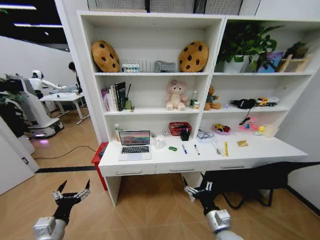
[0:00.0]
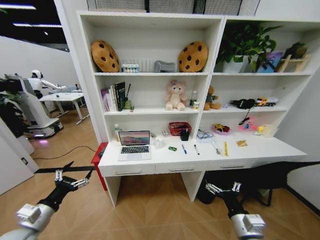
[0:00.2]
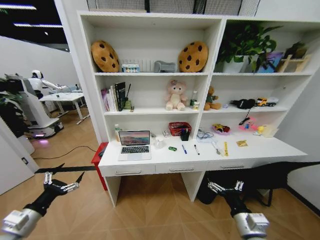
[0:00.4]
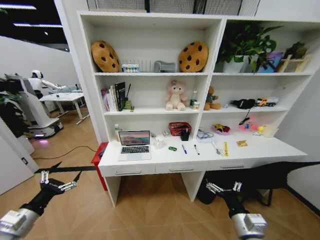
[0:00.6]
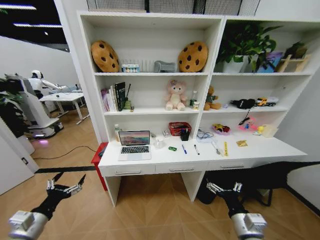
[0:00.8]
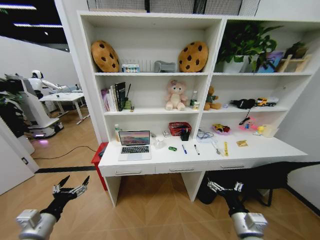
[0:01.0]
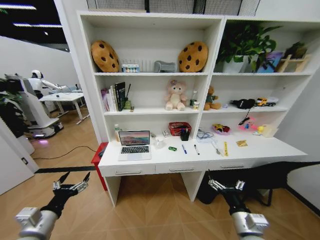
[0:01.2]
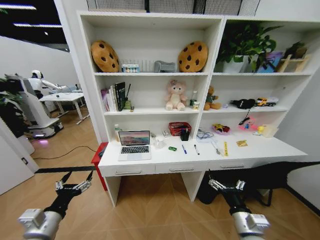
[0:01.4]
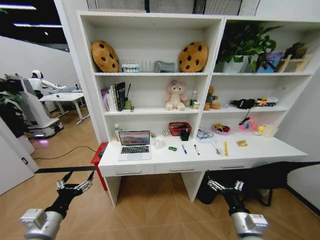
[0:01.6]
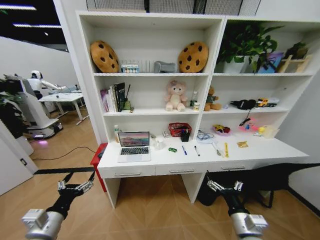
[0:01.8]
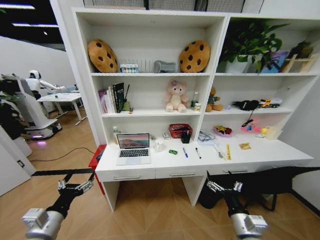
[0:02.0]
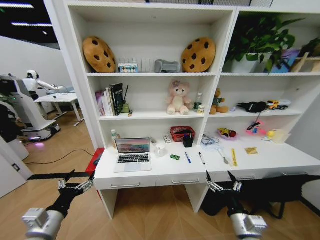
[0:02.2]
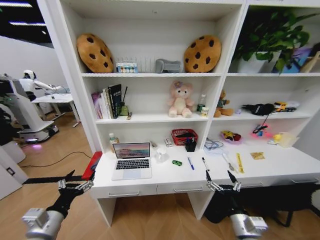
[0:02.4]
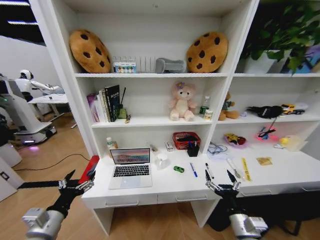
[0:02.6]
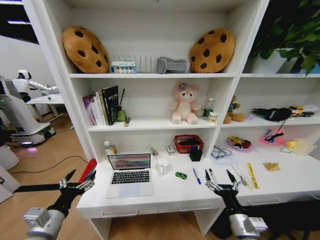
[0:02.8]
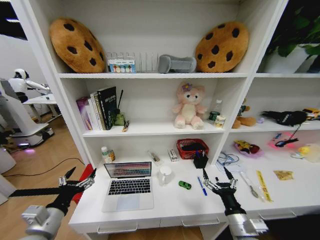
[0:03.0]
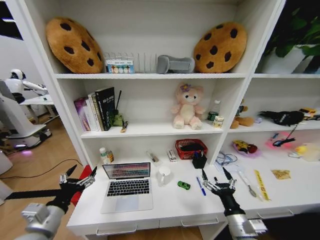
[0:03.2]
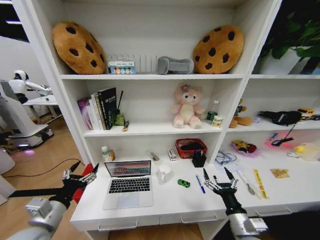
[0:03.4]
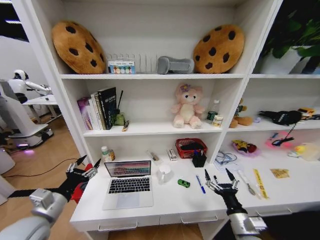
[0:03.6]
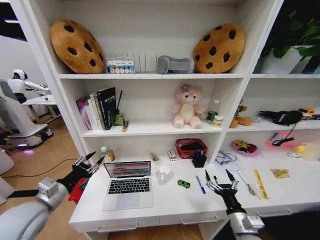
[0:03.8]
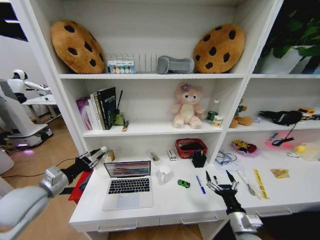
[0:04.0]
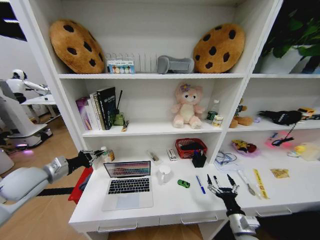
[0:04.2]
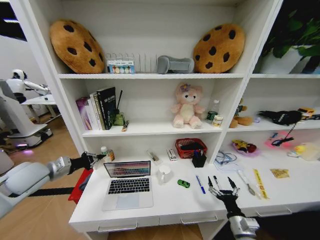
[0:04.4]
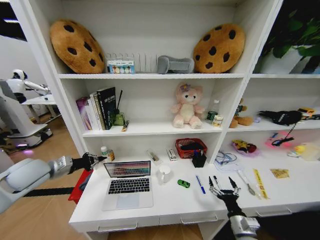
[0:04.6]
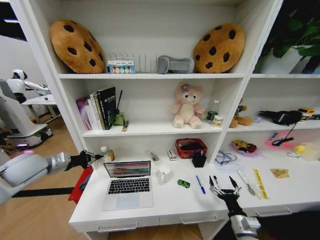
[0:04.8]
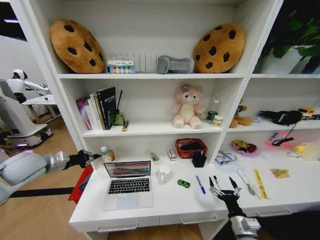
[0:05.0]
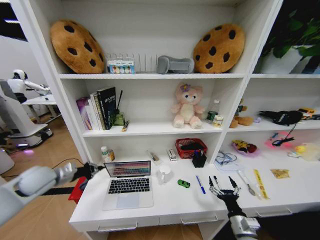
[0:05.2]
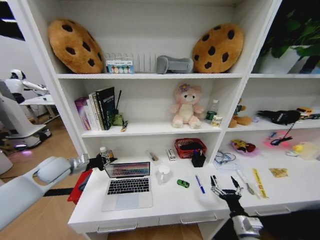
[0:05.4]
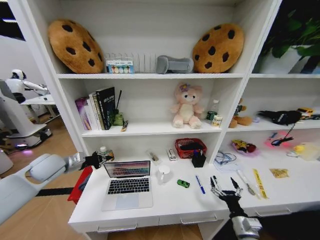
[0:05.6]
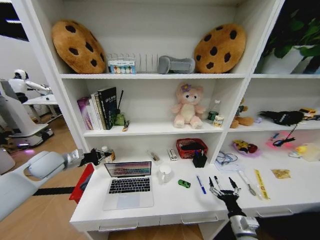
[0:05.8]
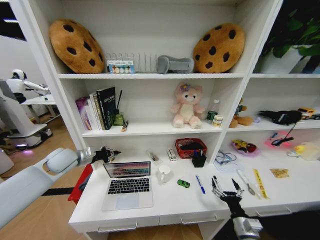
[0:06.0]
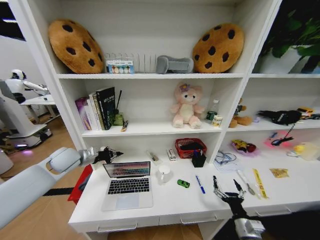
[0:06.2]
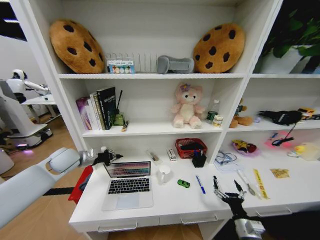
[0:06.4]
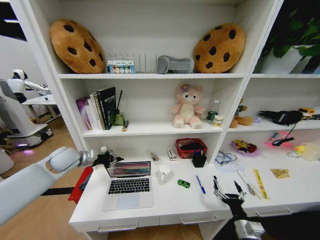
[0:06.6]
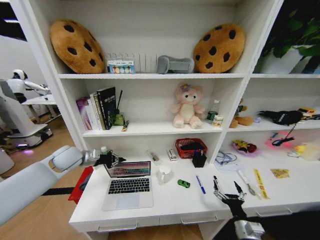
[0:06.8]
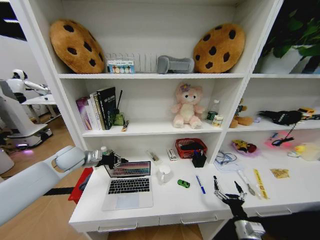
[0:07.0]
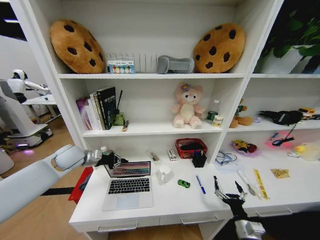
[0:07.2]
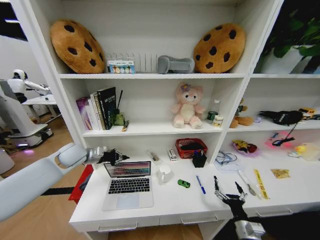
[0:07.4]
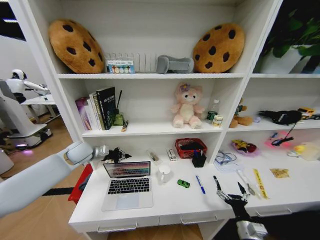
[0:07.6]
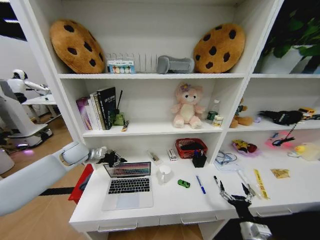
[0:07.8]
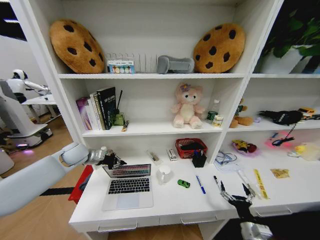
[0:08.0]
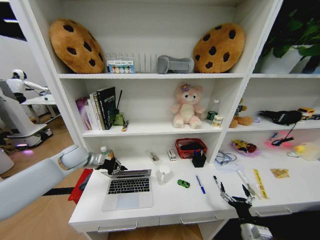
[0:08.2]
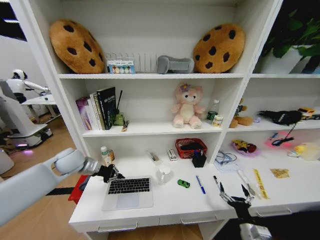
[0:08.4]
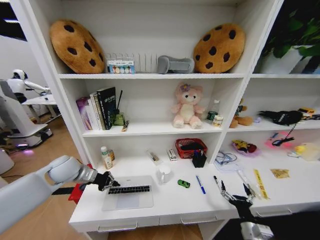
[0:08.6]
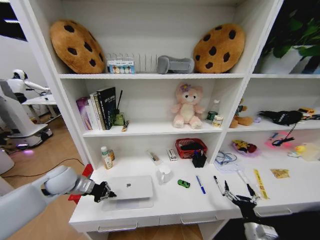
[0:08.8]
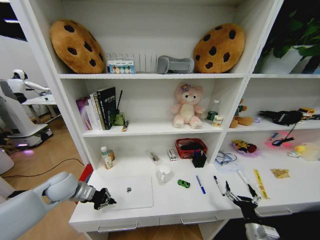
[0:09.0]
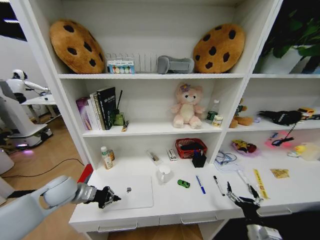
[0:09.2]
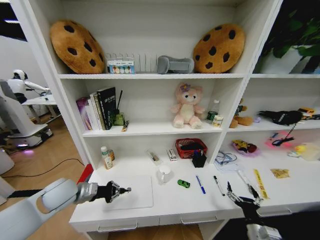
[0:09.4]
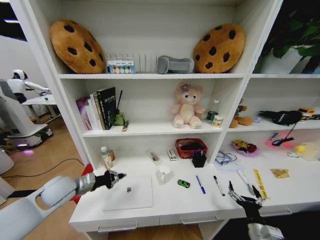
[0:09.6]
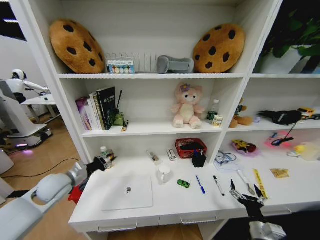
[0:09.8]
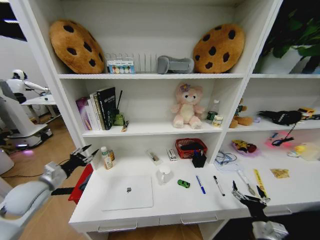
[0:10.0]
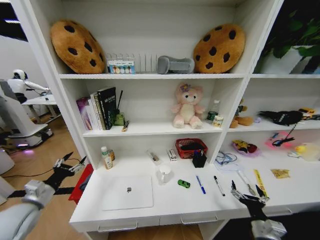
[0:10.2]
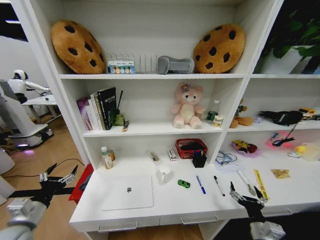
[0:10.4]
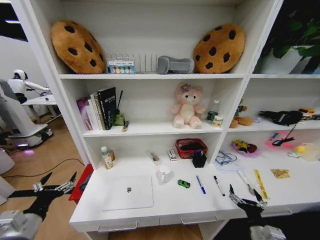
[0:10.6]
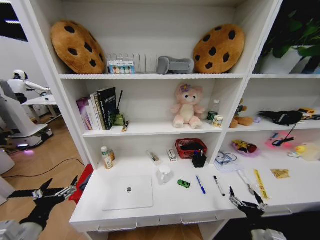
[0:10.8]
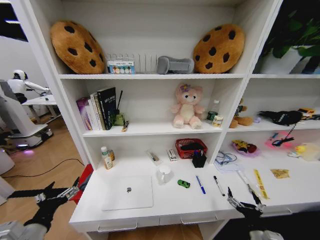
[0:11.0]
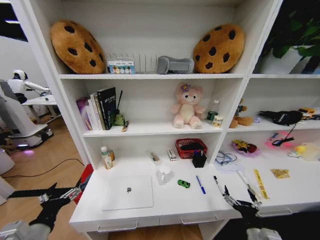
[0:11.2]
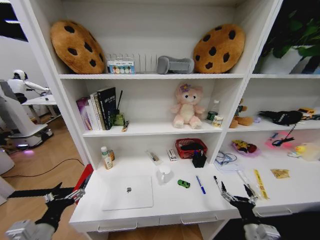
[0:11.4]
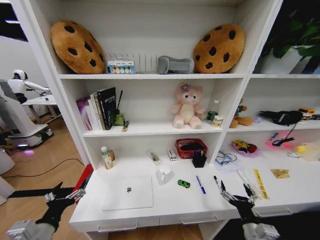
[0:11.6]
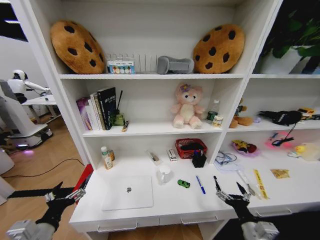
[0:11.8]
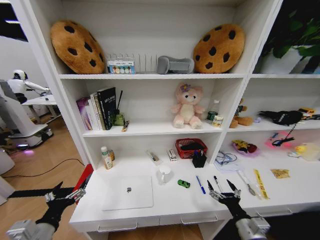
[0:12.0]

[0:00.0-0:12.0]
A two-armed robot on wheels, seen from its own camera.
Task of the whole recording: Organize the objects on the table.
0:03.0 to 0:04.4: The left gripper heads forward, upward and to the left, covering approximately 20 cm, and closes up; the right gripper shifts approximately 5 cm downward.
0:04.4 to 0:06.0: The left gripper moves forward, some 10 cm, and reaches roughly 5 cm downward, then returns.
0:06.0 to 0:07.6: The left gripper moves approximately 5 cm.
0:07.6 to 0:09.0: The left gripper goes roughly 15 cm backward and downward.
0:09.0 to 0:10.4: The left gripper shifts roughly 15 cm backward and to the left, and opens its fingers.
0:10.4 to 0:12.0: The left gripper is displaced to the right and backward by approximately 10 cm, while the right gripper changes place by approximately 5 cm.

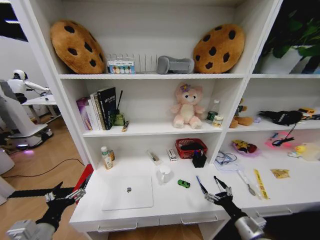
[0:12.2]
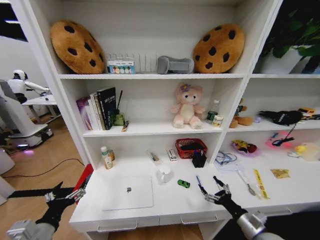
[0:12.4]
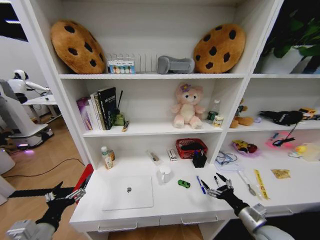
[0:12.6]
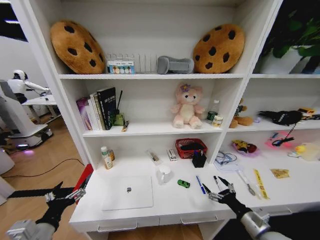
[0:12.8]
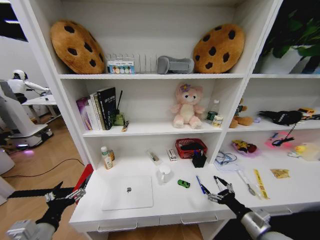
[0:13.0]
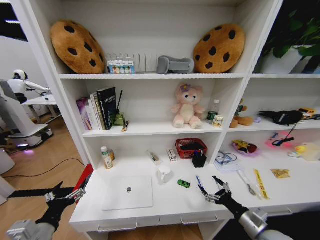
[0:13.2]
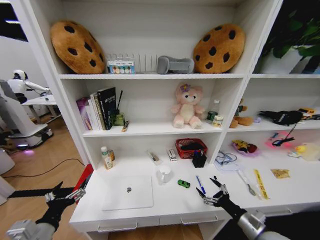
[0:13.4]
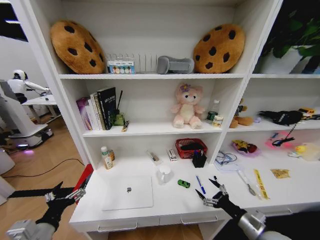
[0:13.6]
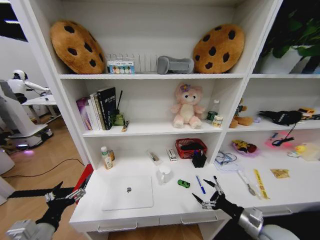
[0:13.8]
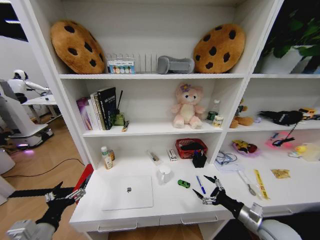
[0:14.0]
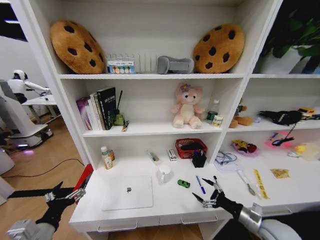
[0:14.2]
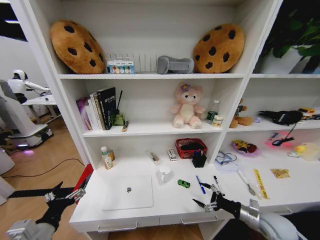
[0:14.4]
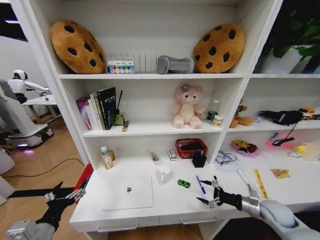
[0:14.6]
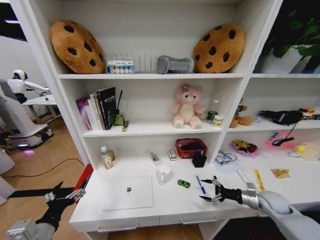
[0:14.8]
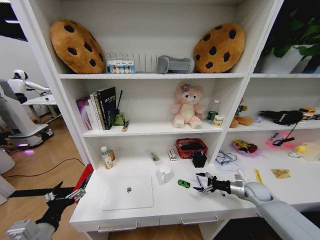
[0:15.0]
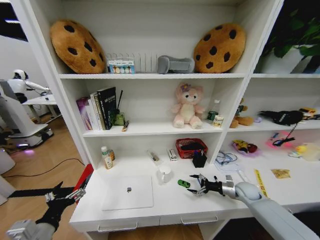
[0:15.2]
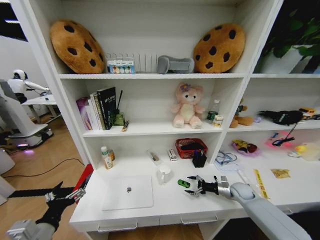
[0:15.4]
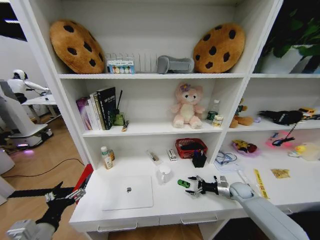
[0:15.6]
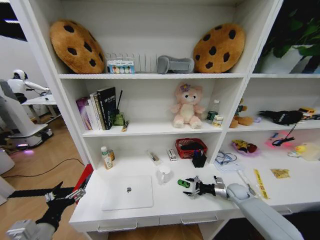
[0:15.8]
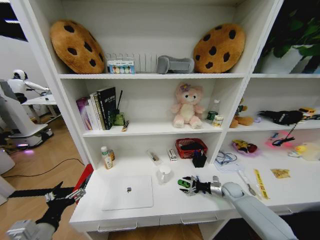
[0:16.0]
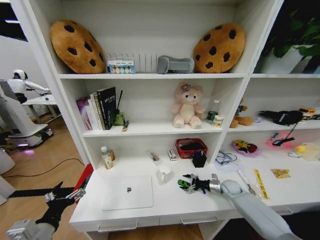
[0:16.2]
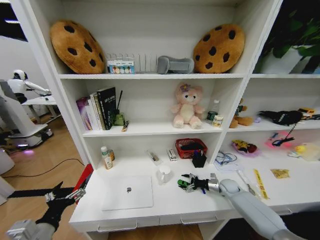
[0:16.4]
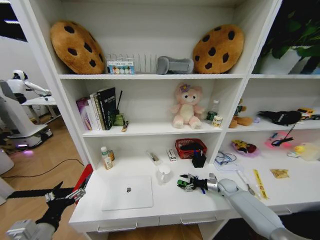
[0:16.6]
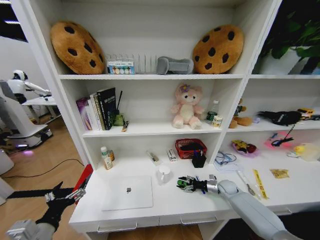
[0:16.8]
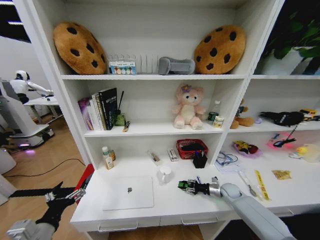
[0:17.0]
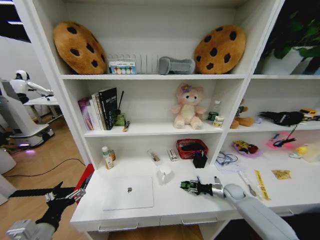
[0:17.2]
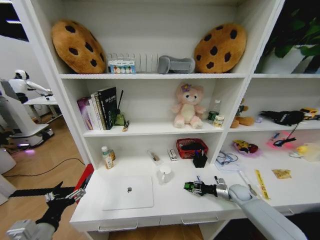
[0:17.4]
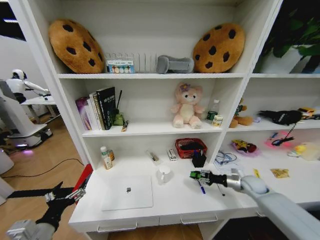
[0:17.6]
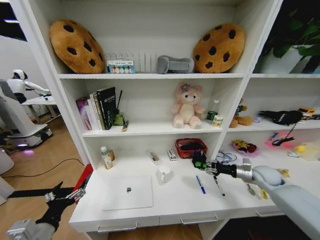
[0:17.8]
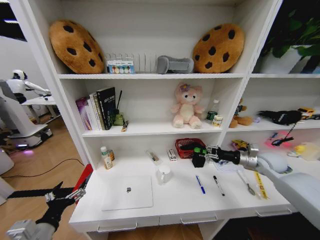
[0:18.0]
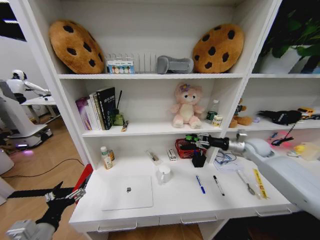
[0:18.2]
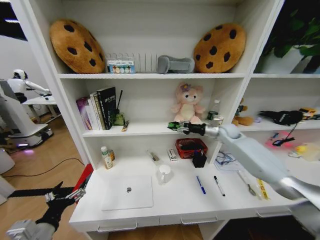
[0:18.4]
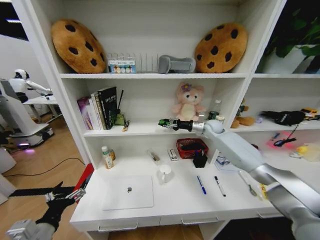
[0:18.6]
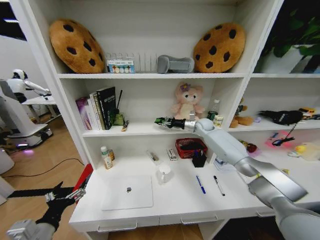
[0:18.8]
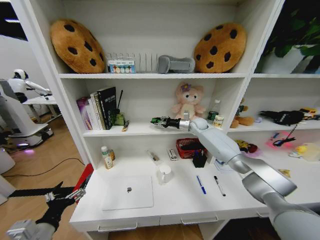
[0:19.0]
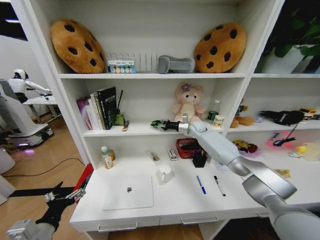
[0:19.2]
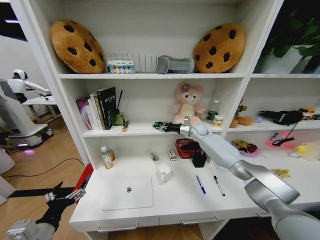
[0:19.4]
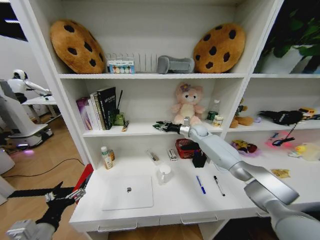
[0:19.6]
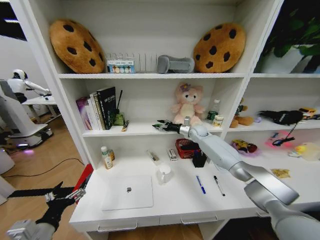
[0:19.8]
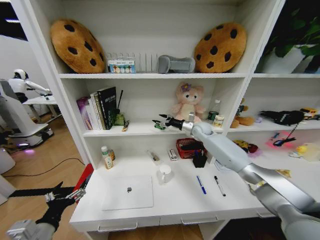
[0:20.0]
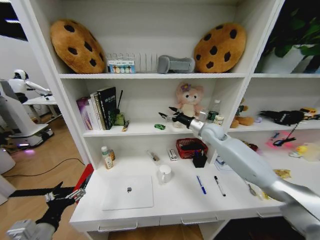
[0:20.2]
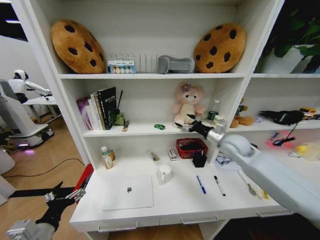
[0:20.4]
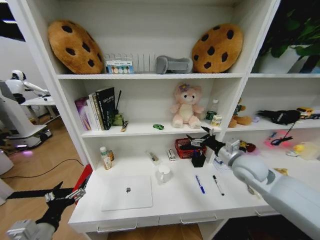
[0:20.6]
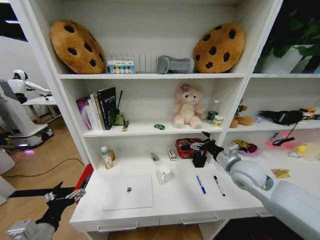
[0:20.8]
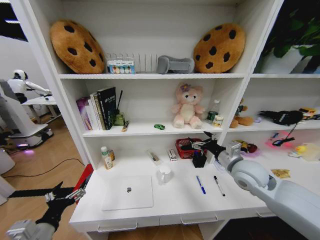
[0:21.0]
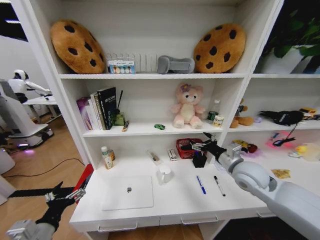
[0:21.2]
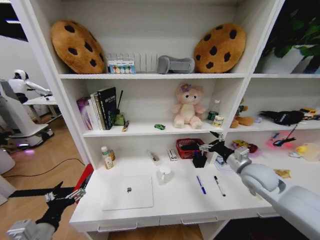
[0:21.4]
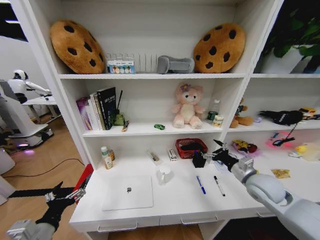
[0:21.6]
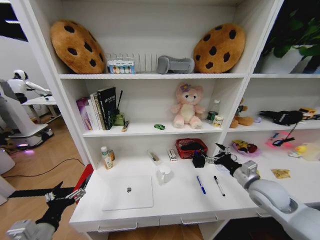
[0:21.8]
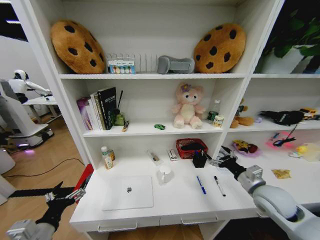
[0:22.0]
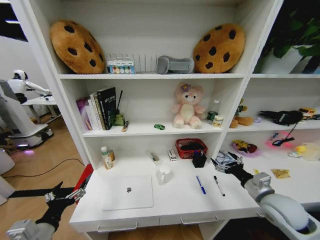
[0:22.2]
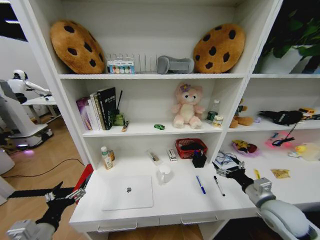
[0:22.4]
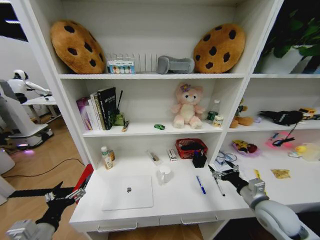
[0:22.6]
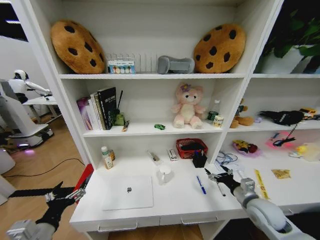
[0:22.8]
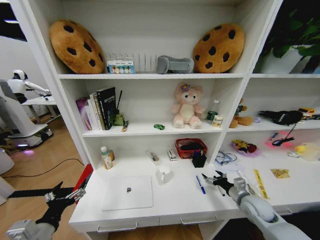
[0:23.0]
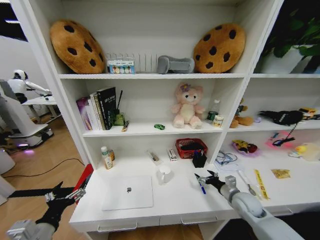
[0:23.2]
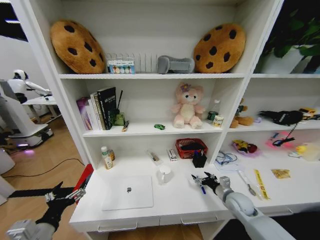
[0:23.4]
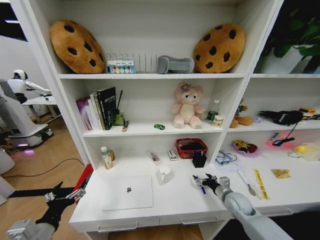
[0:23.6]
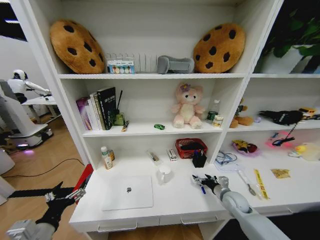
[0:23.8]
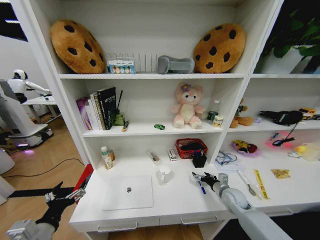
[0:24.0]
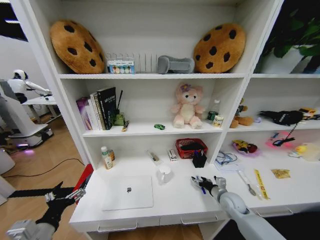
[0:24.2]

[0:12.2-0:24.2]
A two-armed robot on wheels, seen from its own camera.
Task of the whole recording: Organize the objects on the table.
0:12.2 to 0:13.8: The right gripper ends up roughly 5 cm from where it was.
0:13.8 to 0:15.2: The right gripper heads forward, covering approximately 20 cm.
0:15.2 to 0:16.6: The right gripper goes approximately 10 cm downward and forward.
0:16.6 to 0:18.2: The right gripper heads upward, covering some 30 cm, and closes up.
0:18.2 to 0:19.8: The right gripper is displaced to the left and forward by approximately 25 cm, and opens.
0:19.8 to 0:21.2: The right gripper shifts about 30 cm backward.
0:21.2 to 0:22.6: The right gripper travels downward, backward and to the right by about 15 cm.
0:22.6 to 0:24.2: The right gripper is displaced downward and forward by about 15 cm.
